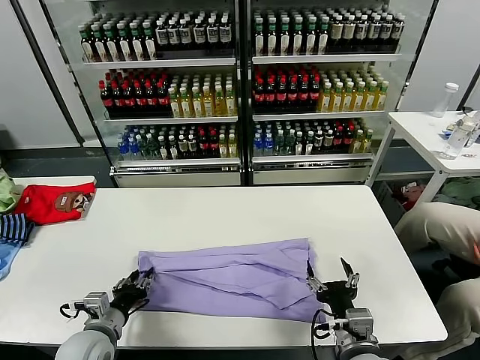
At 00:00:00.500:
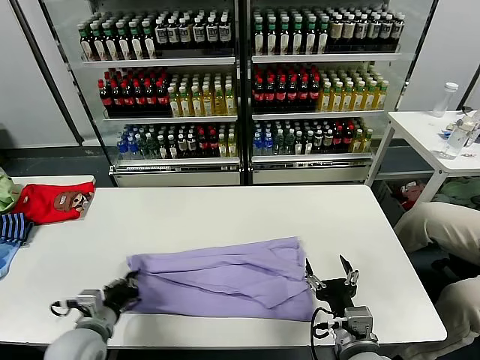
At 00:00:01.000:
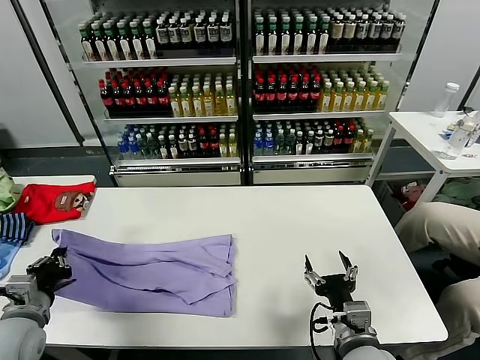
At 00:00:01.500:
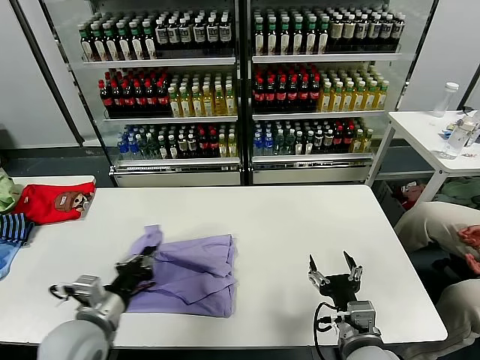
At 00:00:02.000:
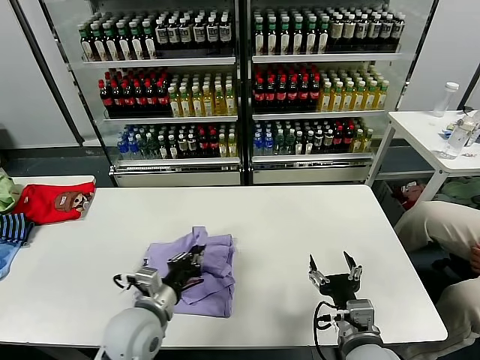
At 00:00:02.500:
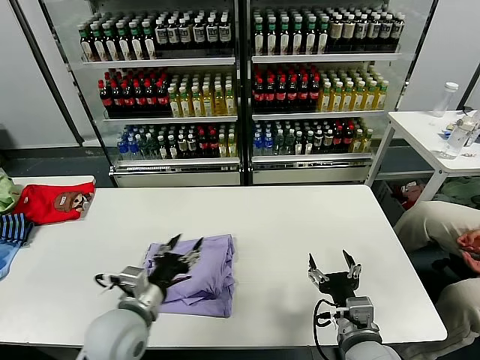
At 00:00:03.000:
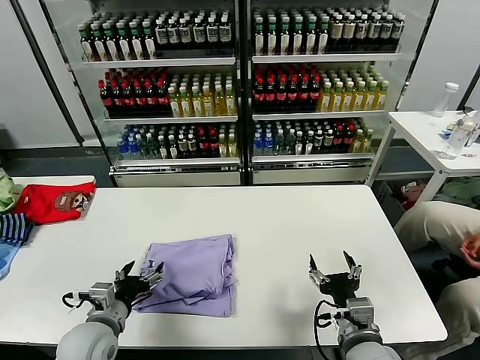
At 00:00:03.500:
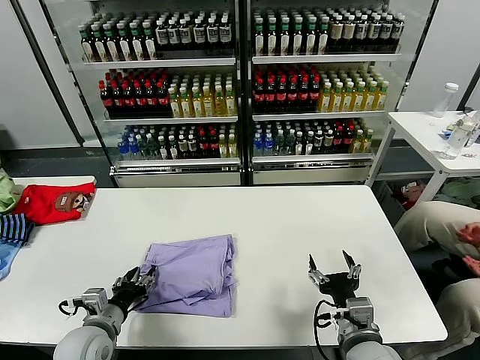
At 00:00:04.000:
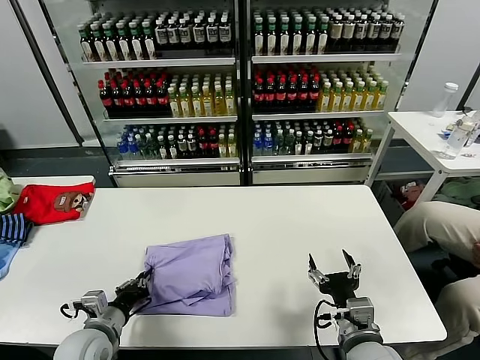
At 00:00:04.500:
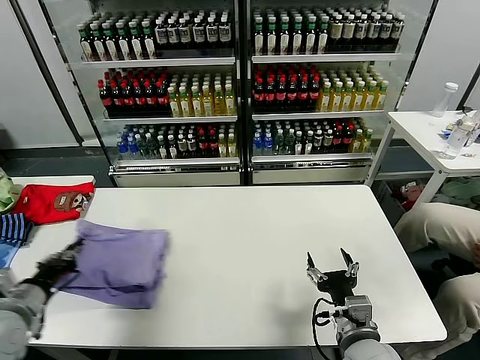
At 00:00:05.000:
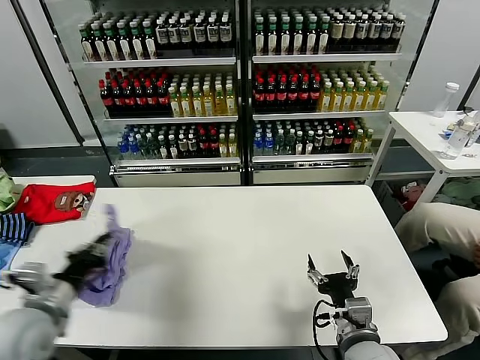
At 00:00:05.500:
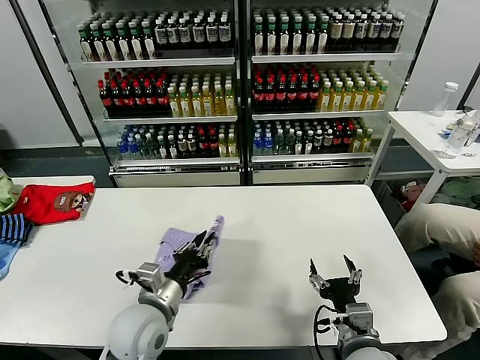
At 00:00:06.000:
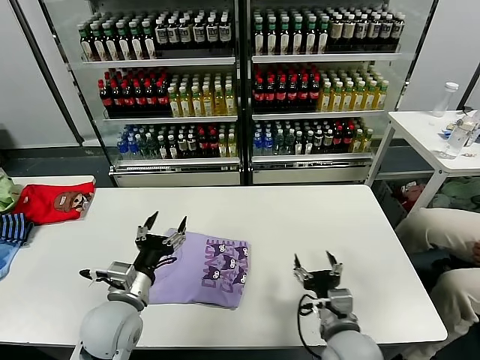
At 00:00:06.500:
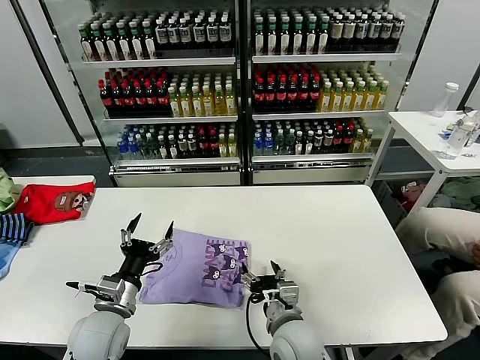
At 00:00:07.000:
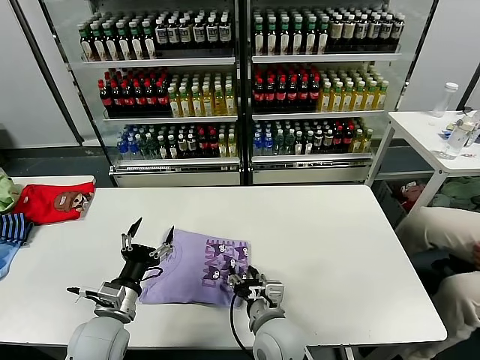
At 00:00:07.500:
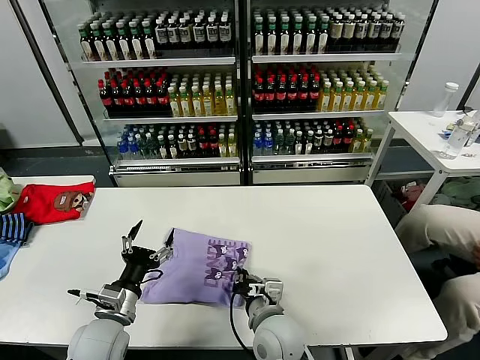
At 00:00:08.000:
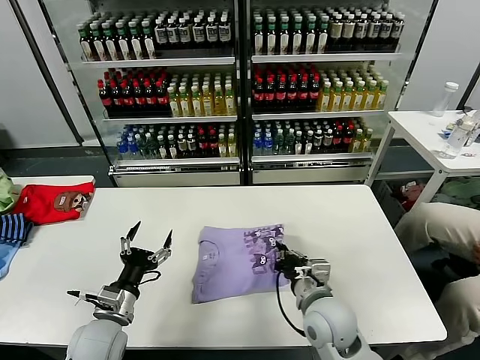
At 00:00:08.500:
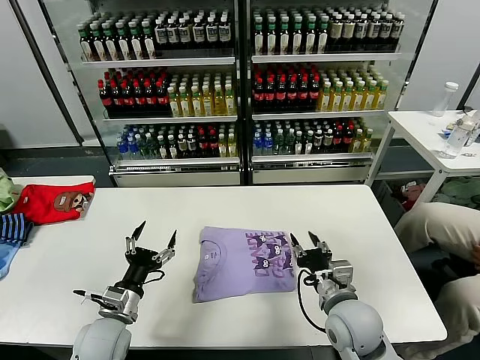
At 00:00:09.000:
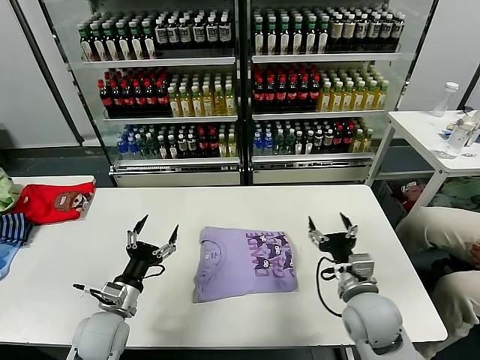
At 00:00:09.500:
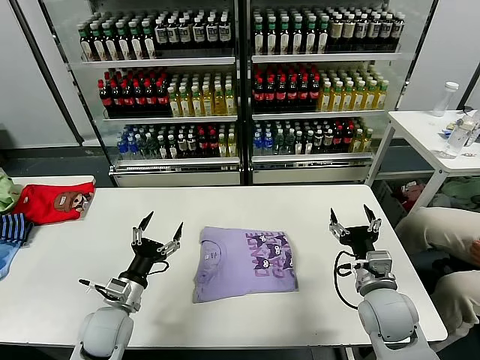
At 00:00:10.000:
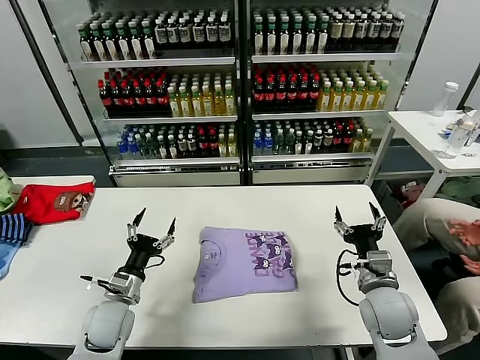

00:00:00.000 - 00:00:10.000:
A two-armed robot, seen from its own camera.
Task of the whole recording: fold and organize the clothes.
Step, 00:00:00.500 - 00:00:02.000: use the left gripper to drag the left edge of the fabric to the left and folds it over the right edge.
Step, 00:00:02.500 - 00:00:06.000: Flip the folded clothes over with left gripper.
Step, 00:00:06.500 - 00:00:09.000: Drag the clothes to the center of the table.
00:00:00.000 - 00:00:02.000: The left gripper moves to the right and upward, some 15 cm.
00:00:02.000 - 00:00:04.000: The left gripper goes about 15 cm to the left and downward, and opens, then closes once more.
00:00:04.000 - 00:00:06.000: The left gripper goes left and right, roughly 25 cm each way, reversing 2 times, and opens its fingers.
00:00:06.000 - 00:00:08.000: The left gripper goes roughly 5 cm downward; the right gripper heads forward, covering approximately 5 cm, goes to the left and returns, approximately 15 cm each way, and closes up.
00:00:08.000 - 00:00:10.000: The right gripper is displaced to the right by about 10 cm, and opens up; the left gripper travels forward by approximately 5 cm.
